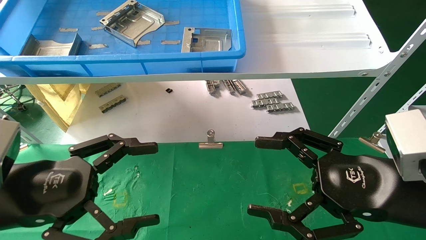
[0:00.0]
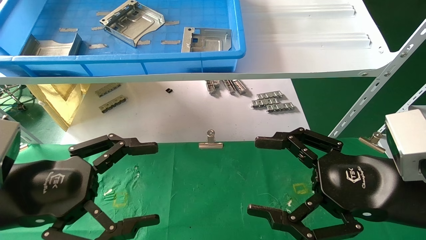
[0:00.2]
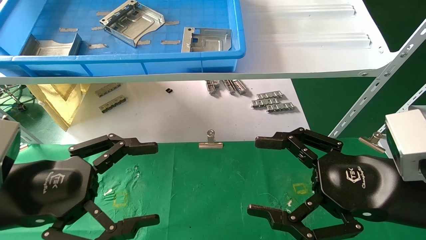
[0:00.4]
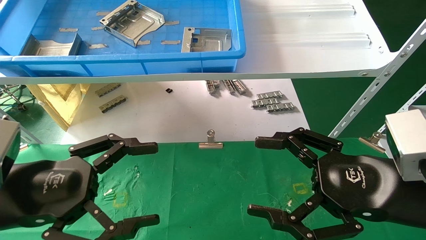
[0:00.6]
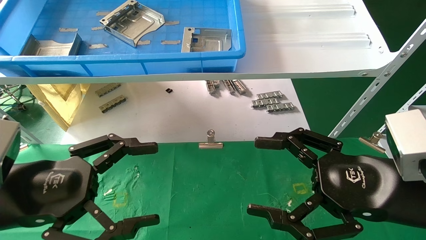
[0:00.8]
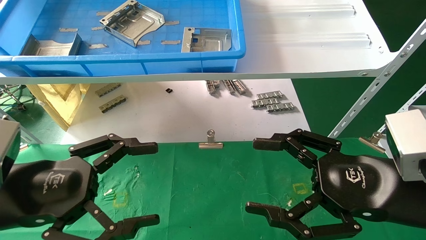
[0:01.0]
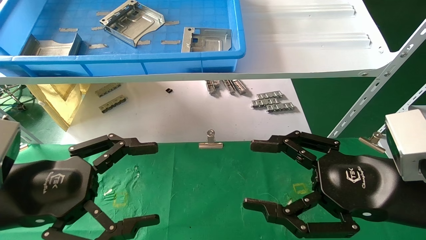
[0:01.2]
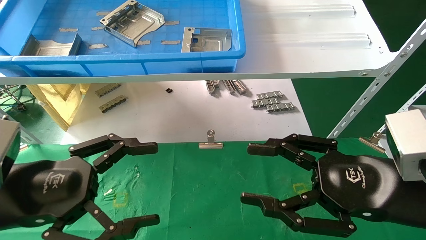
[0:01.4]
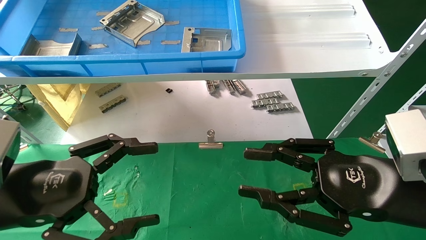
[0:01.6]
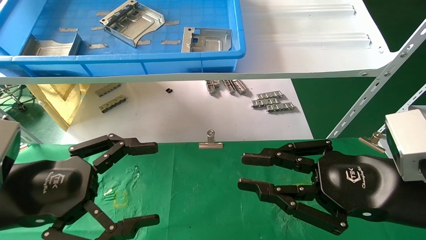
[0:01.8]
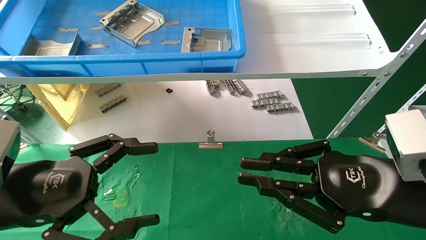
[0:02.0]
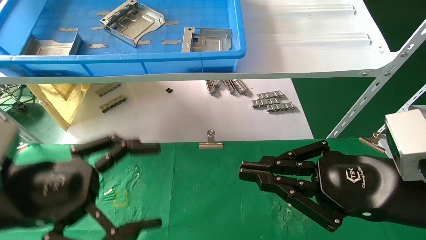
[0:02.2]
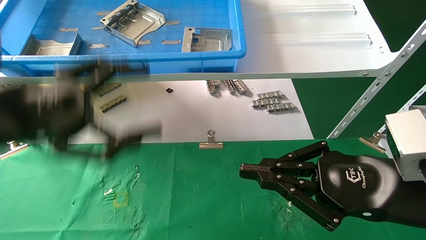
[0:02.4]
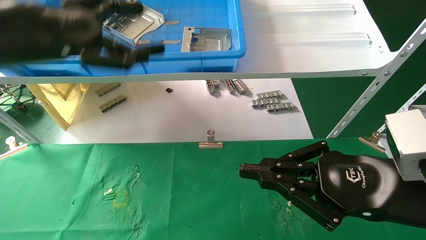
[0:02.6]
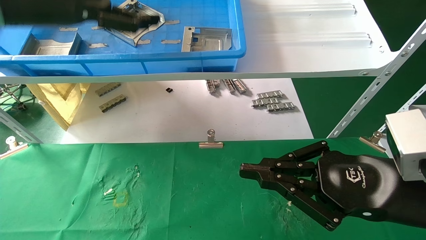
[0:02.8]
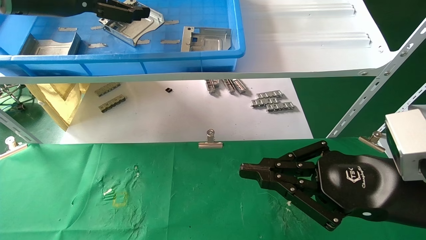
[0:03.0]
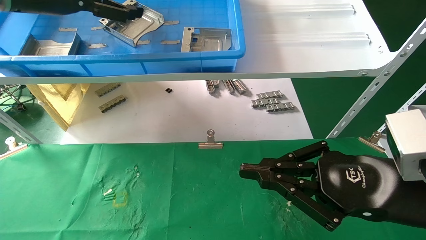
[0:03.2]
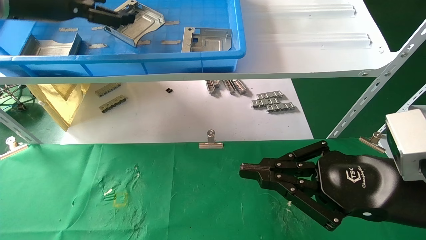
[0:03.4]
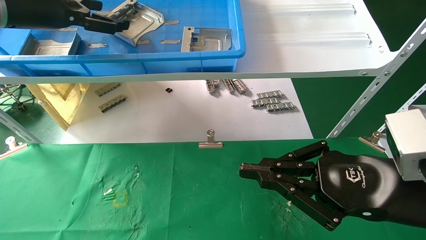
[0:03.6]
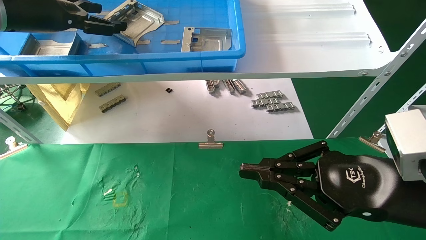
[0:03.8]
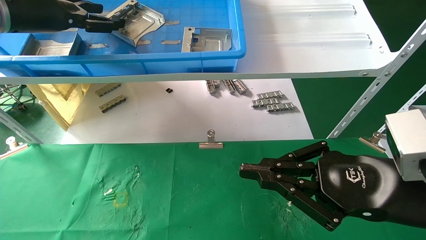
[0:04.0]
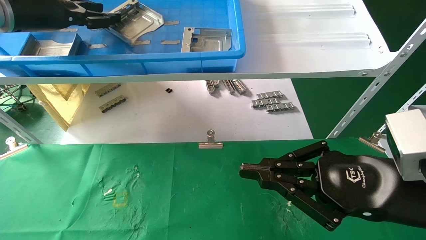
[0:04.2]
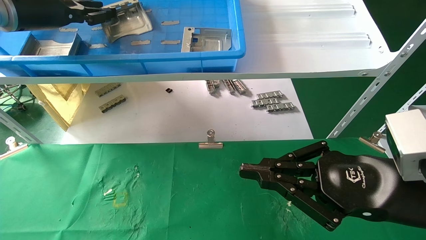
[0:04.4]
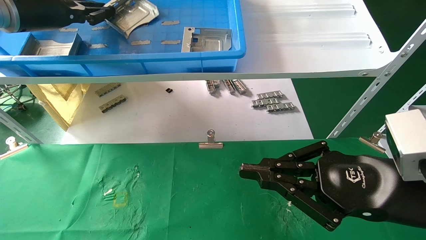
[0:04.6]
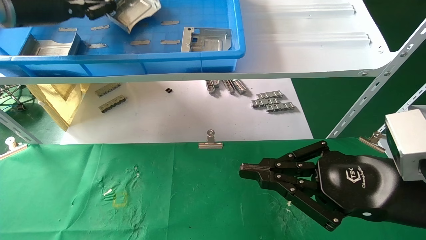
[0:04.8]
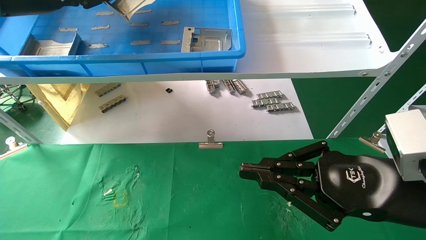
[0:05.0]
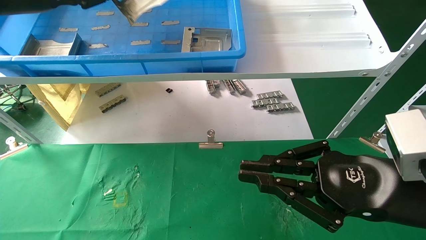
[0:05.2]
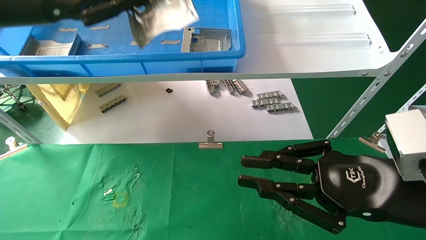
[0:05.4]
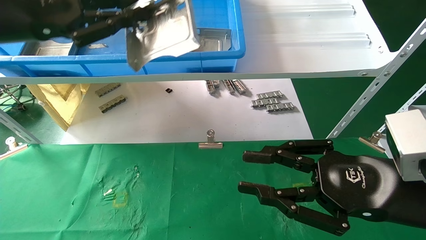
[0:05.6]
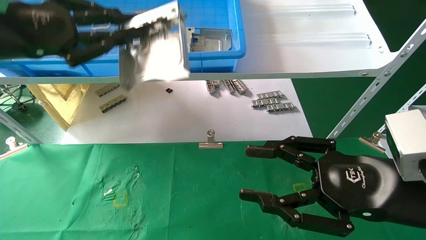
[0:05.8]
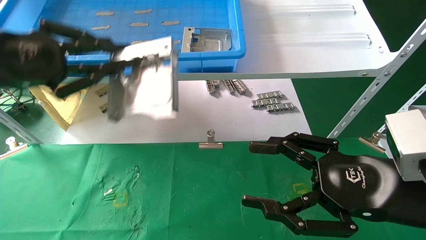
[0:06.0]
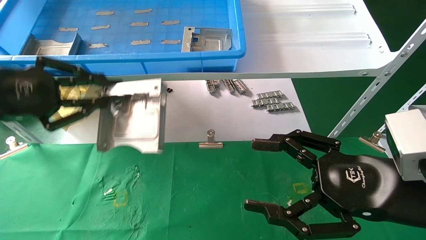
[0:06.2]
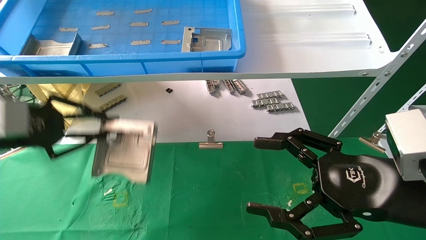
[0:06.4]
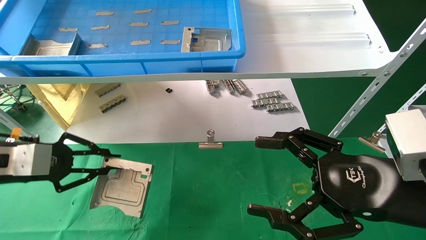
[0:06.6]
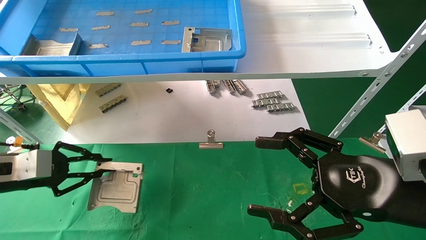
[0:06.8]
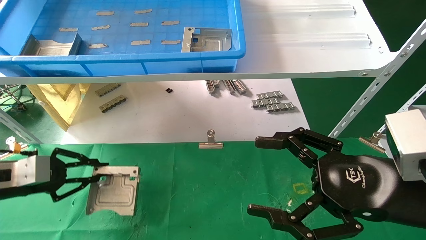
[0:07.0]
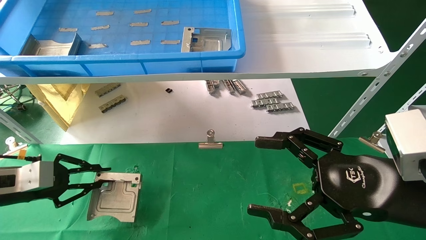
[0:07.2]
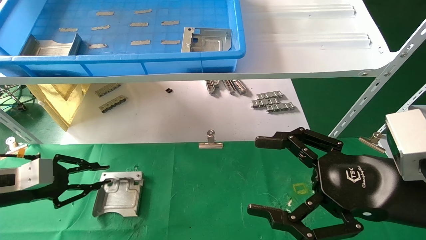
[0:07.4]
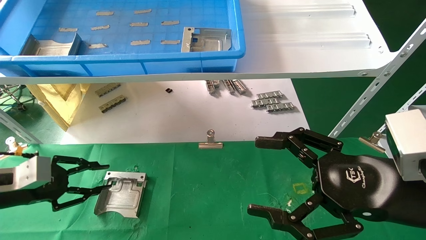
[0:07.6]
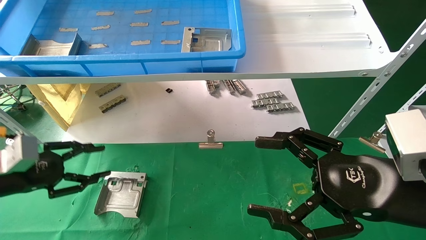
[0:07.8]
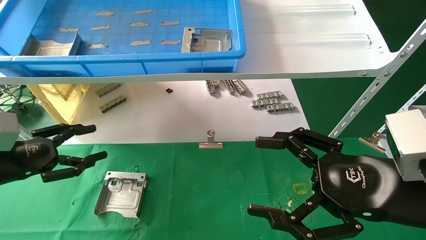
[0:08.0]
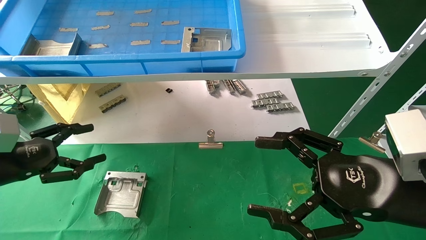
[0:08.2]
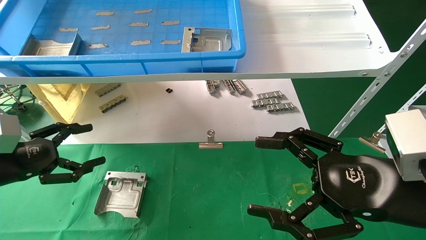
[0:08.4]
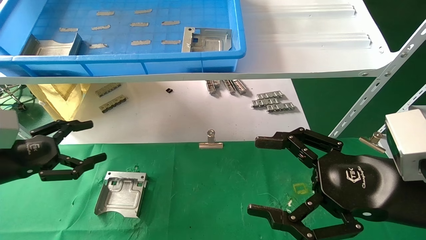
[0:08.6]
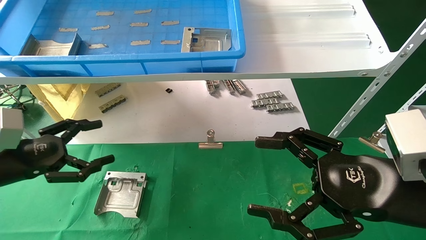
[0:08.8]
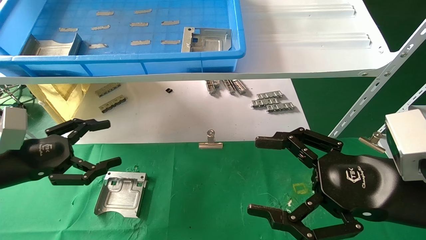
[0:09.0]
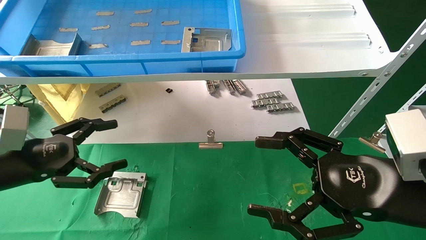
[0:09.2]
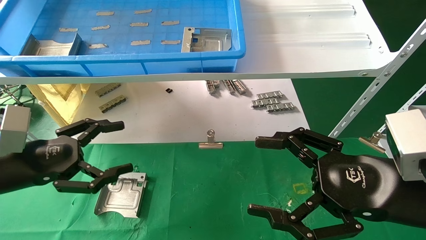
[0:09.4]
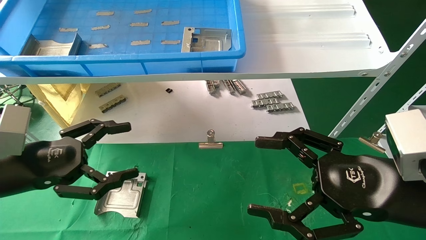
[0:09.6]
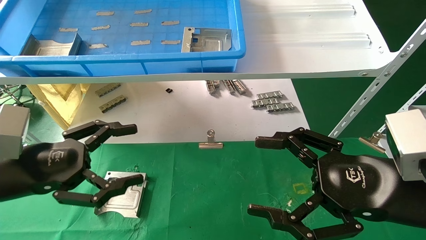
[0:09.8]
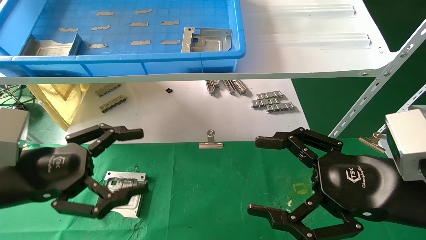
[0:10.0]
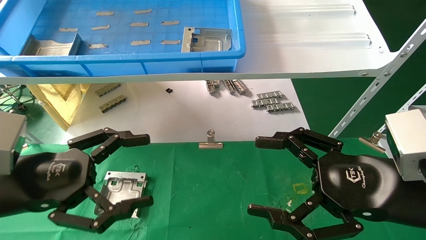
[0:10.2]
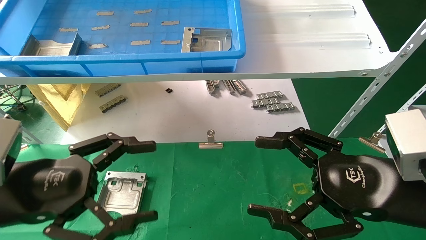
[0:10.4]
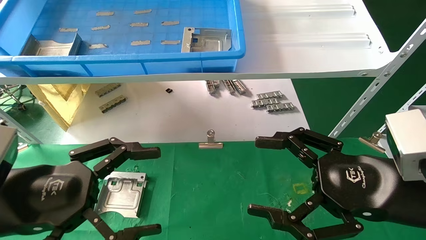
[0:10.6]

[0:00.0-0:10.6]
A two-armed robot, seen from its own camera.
Task of the whole recording: use the mechanical arm to pick up the parts and place them on the table.
Step, 0:02.8 to 0:04.4: Pick up the hard drive bracket from the feeding area.
Step, 0:04.6 to 0:07.8: Place the hard drive bracket into the box.
0:00.0 to 0:01.6: The right gripper closes.
0:01.6 to 0:03.0: The right gripper closes up; the left gripper is displaced upward and forward by approximately 30 cm.
0:03.0 to 0:04.6: The left gripper ends up approximately 5 cm from where it was, and closes its fingers.
0:04.6 to 0:06.0: The right gripper opens. The left gripper shifts about 15 cm backward and downward.
0:06.0 to 0:07.6: The left gripper heads downward, covering about 20 cm, while the right gripper opens up.
0:07.6 to 0:09.0: The left gripper moves about 5 cm, and opens its fingers.
0:09.0 to 0:10.6: The left gripper heads to the right and backward, covering about 15 cm.
